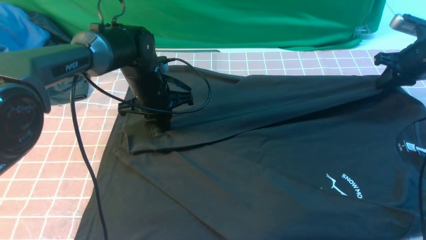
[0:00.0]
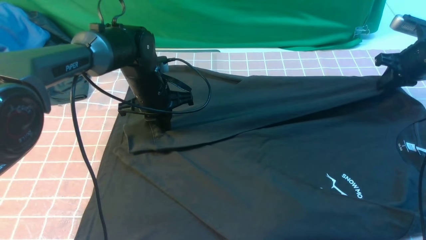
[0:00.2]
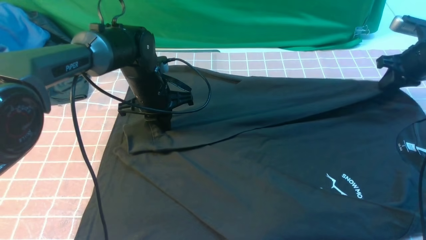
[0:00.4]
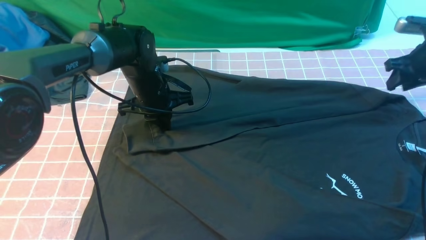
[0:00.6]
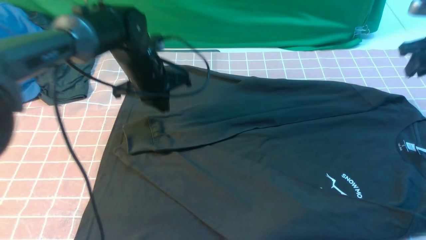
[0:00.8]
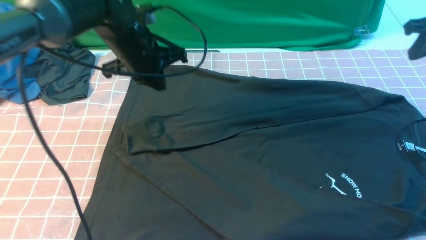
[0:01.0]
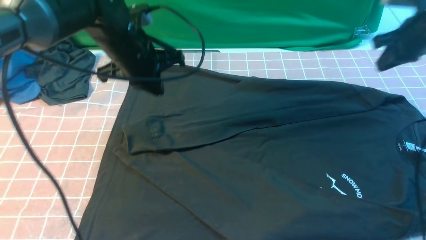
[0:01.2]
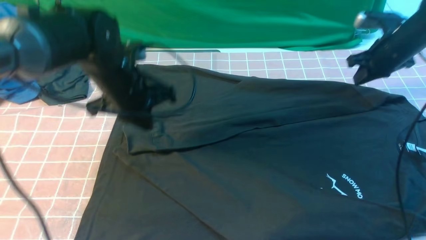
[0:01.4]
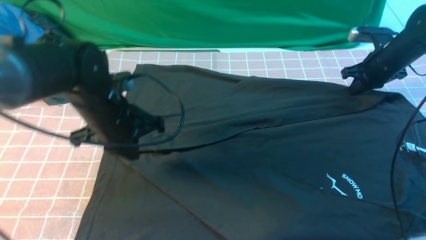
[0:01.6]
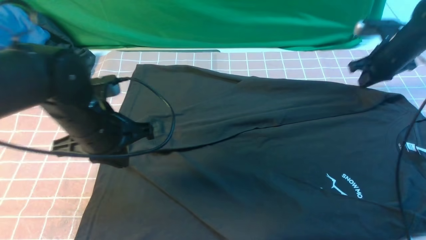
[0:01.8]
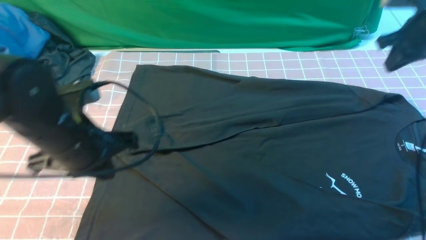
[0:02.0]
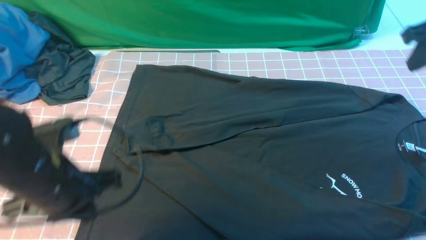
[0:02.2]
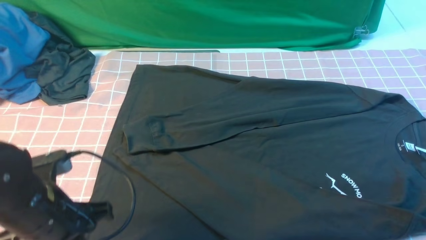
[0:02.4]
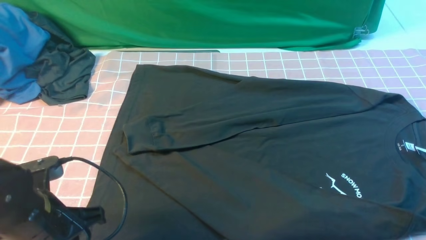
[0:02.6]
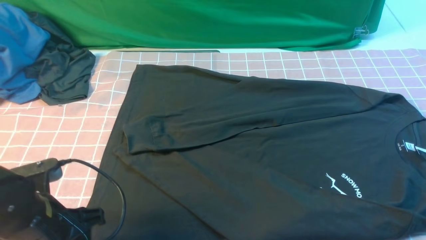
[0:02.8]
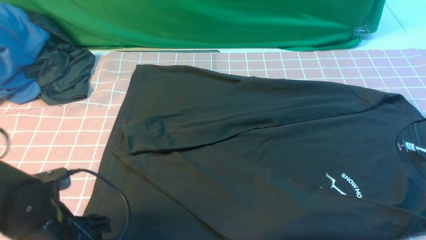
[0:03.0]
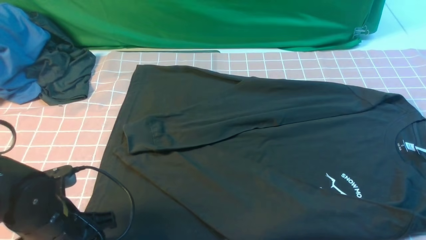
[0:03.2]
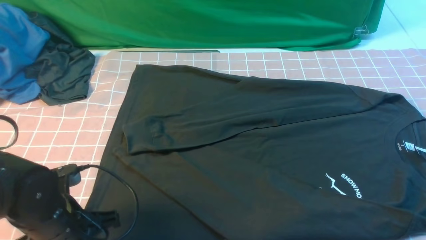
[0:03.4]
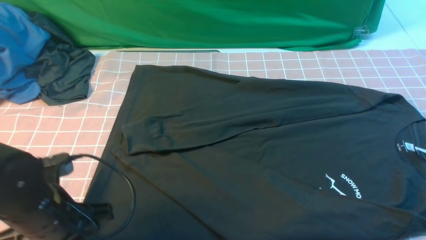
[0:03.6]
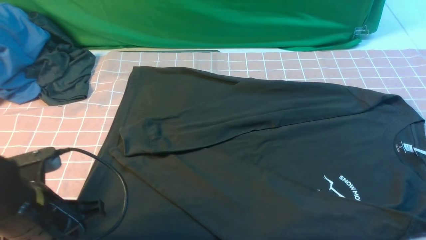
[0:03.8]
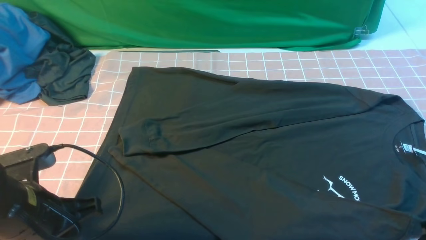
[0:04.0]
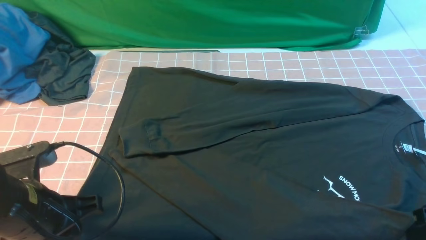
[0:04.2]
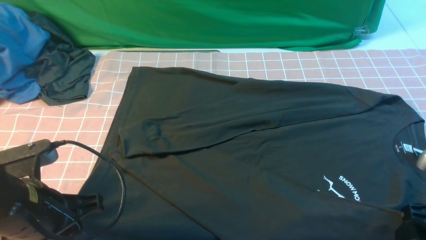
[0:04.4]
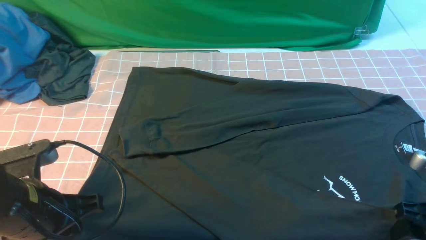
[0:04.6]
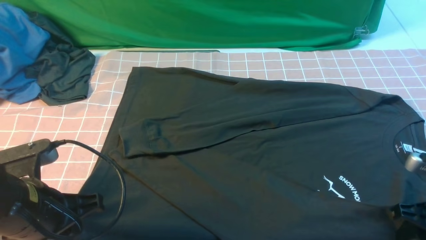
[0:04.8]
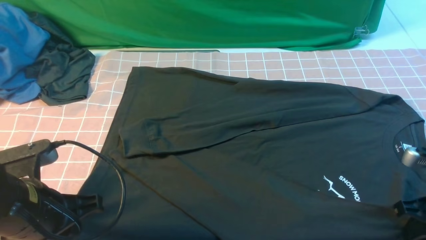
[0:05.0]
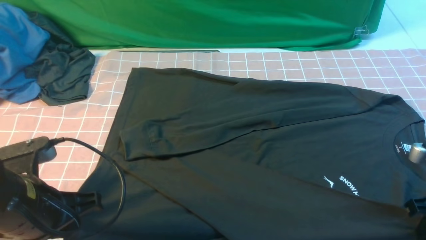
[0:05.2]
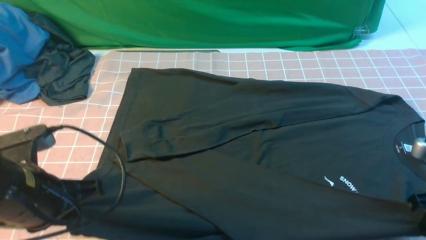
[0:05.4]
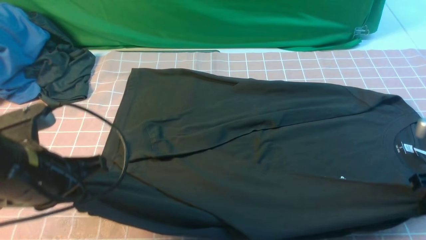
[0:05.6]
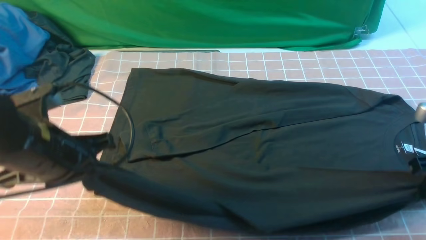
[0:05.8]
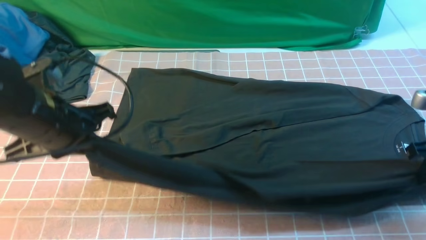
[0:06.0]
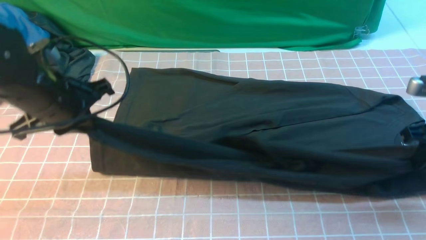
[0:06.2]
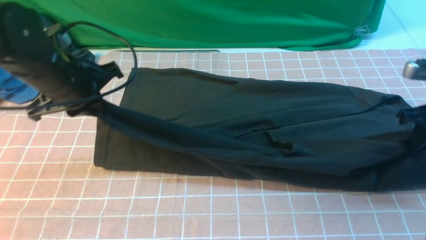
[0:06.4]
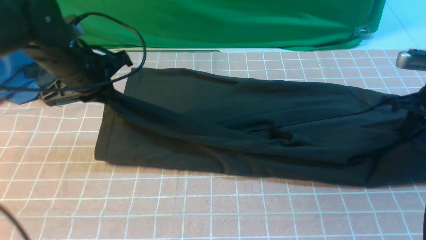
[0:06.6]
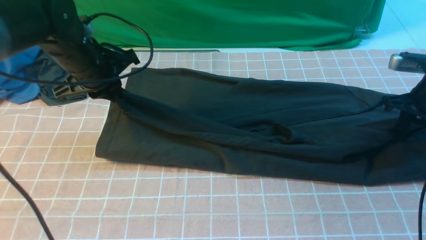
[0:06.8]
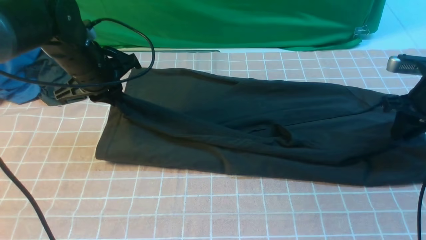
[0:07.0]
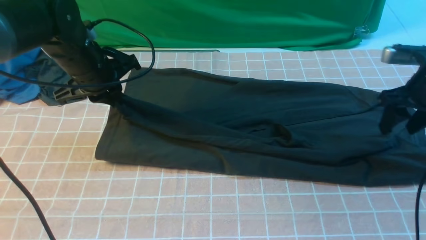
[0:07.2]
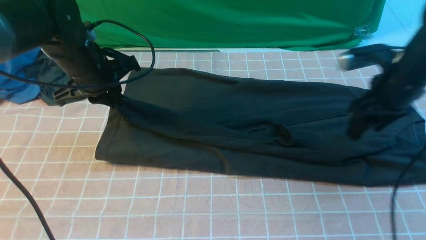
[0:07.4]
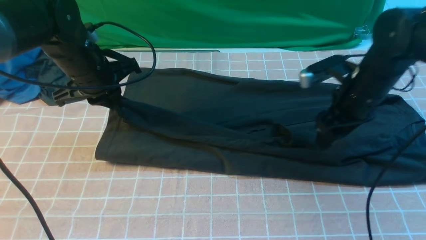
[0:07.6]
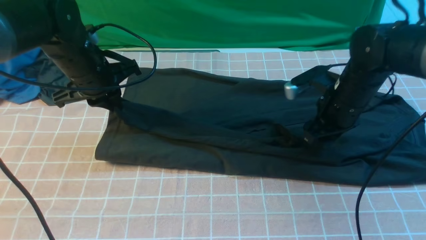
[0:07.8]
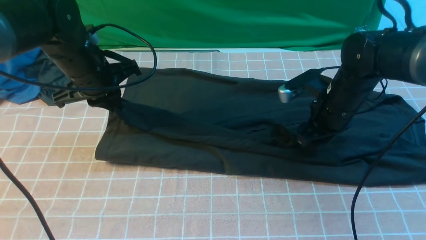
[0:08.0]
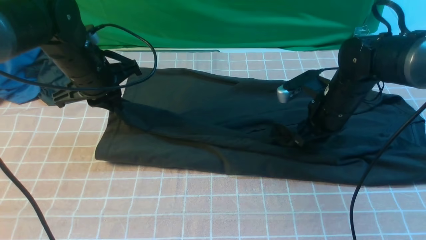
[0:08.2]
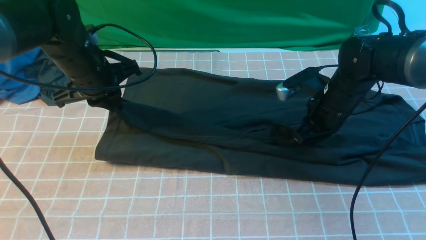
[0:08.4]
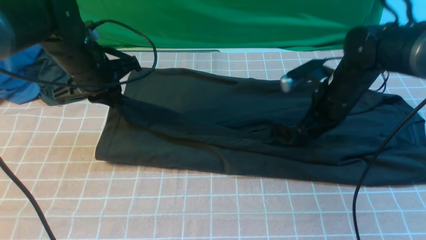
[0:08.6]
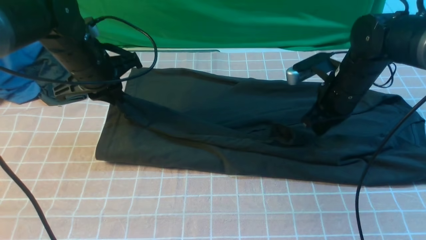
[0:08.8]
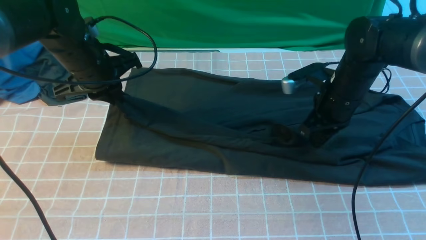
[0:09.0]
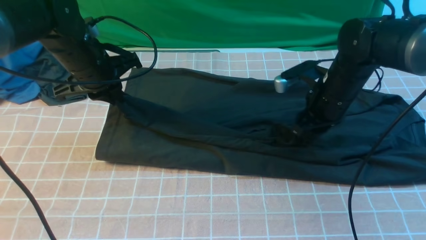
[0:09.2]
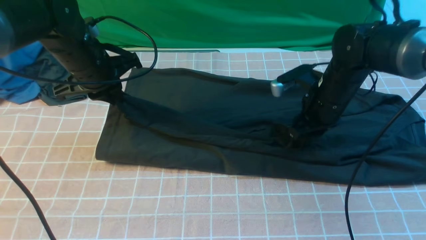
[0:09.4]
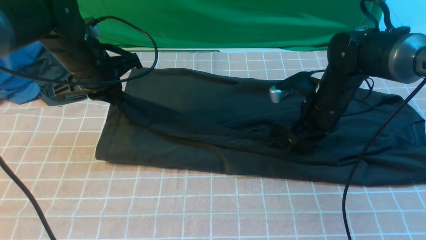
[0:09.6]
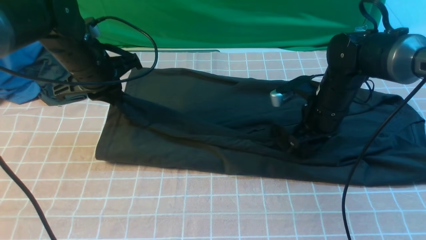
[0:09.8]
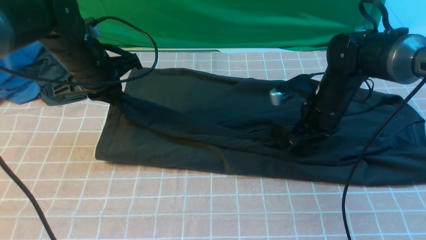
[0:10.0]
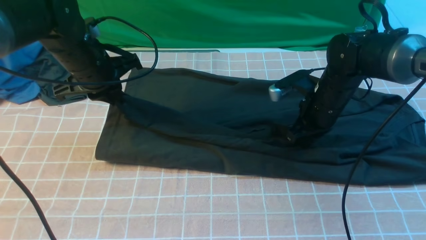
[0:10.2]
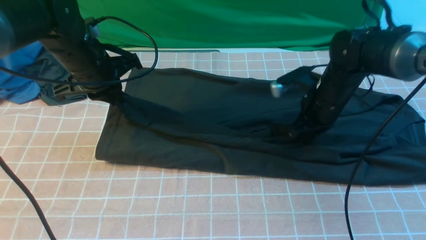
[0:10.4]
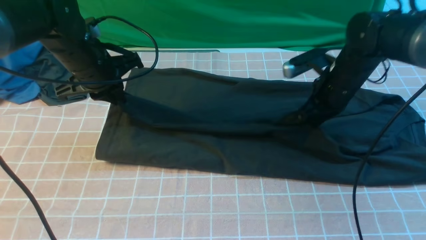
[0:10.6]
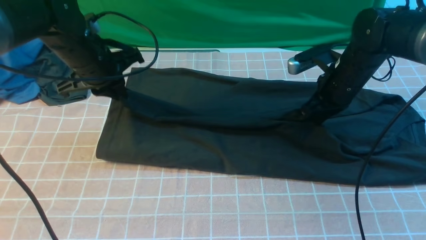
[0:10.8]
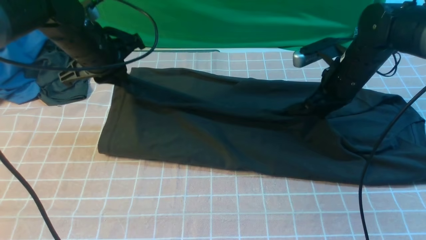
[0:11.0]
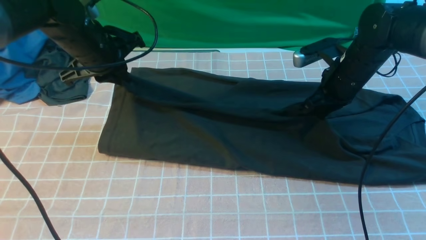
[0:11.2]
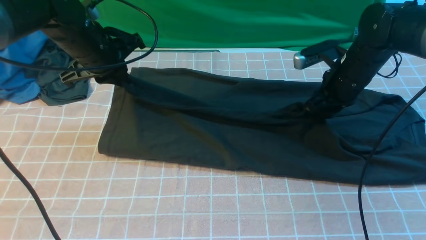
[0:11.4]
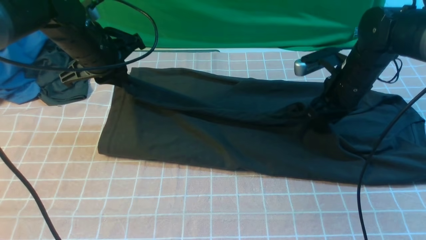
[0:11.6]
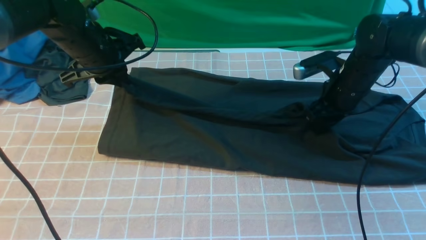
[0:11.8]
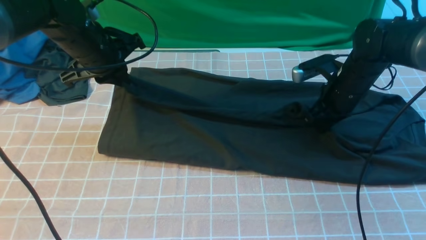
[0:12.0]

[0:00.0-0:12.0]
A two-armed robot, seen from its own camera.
Step, 0:00.0 to 0:05.0: use both arms simultaneously to clamp the lower edge of the clothing fabric.
0:00.0 to 0:01.6: The left gripper heads backward and upward, covering approximately 15 cm; the right gripper reaches some 5 cm upward, then returns, and opens and closes again.
0:01.6 to 0:03.0: The left gripper heads backward and downward, covering roughly 15 cm, and opens; the right gripper heads backward and upward, covering approximately 35 cm.
0:03.0 to 0:04.4: The left gripper shifts approximately 5 cm upward, and closes; the right gripper goes some 15 cm downward, and opens its fingers.
0:04.4 to 0:06.0: The left gripper travels forward and upward by approximately 10 cm, while the right gripper shifts roughly 10 cm forward, and closes its fingers.
0:06.0 to 0:07.6: The right gripper shifts some 15 cm to the left and forward, and opens up; the left gripper goes about 15 cm forward.
0:07.6 to 0:09.0: The right gripper closes up.
0:09.0 to 0:10.4: The right gripper opens, then closes again.
0:10.4 to 0:12.0: The right gripper opens and closes again.

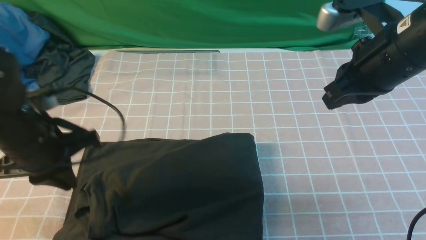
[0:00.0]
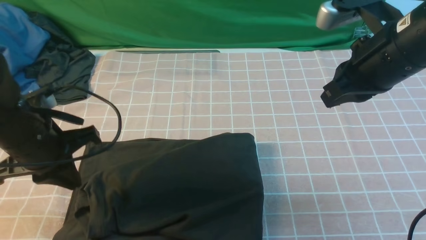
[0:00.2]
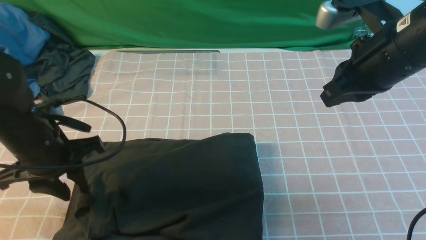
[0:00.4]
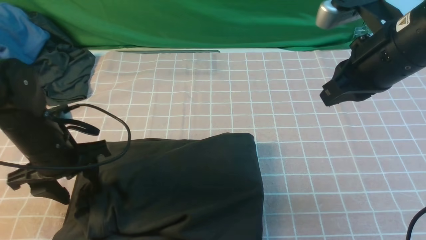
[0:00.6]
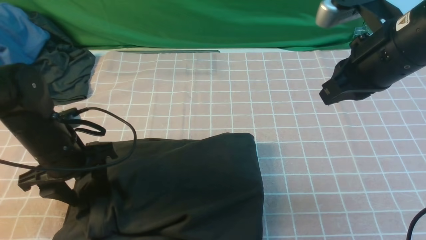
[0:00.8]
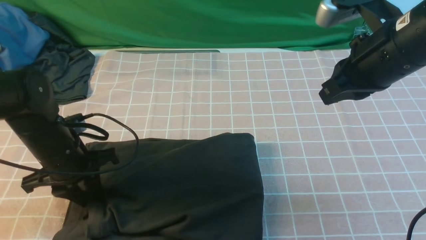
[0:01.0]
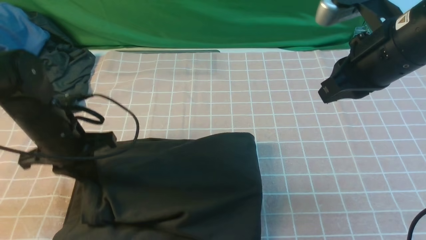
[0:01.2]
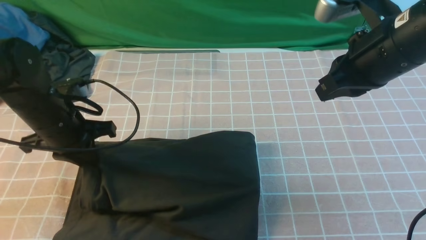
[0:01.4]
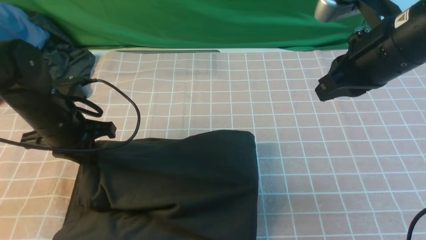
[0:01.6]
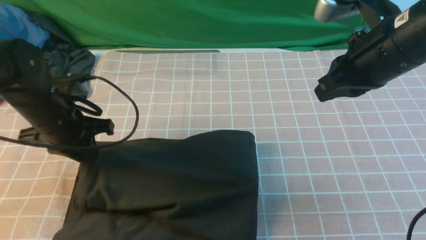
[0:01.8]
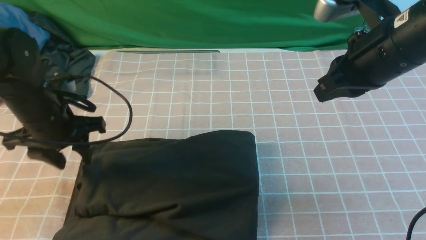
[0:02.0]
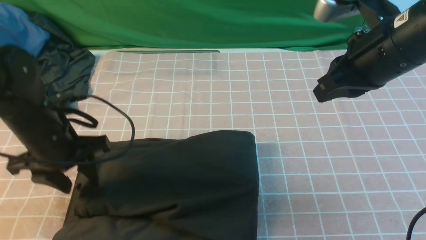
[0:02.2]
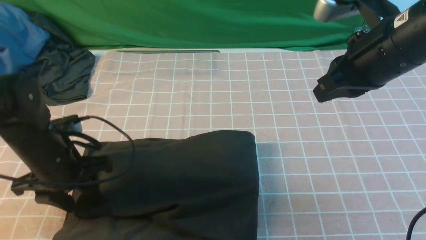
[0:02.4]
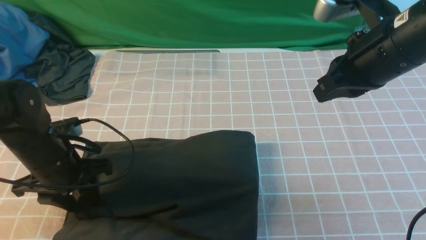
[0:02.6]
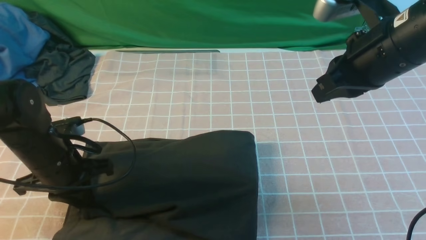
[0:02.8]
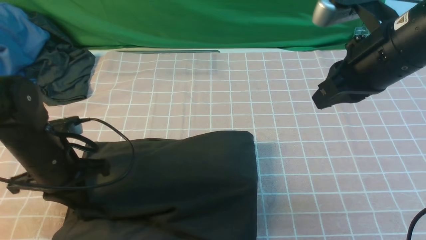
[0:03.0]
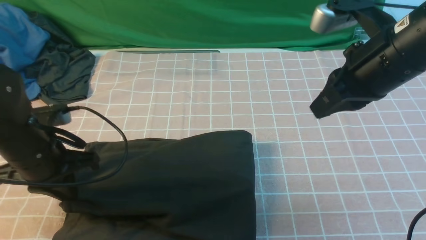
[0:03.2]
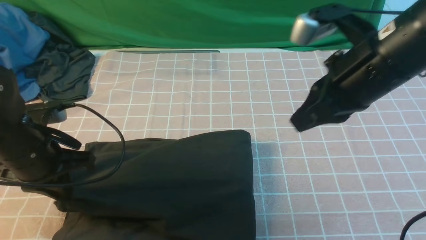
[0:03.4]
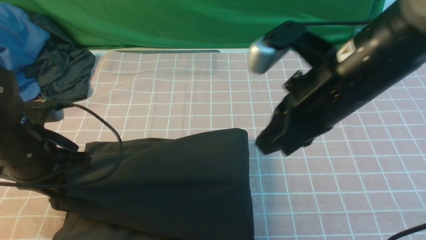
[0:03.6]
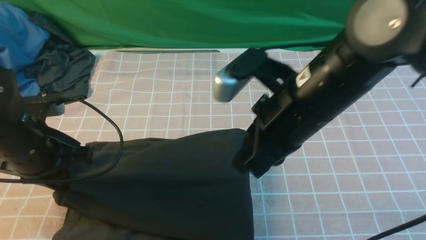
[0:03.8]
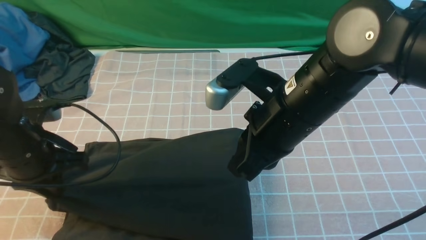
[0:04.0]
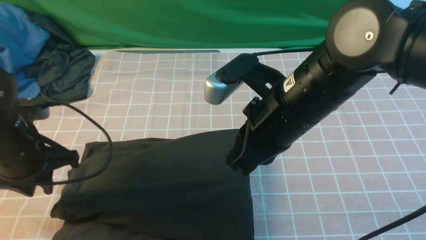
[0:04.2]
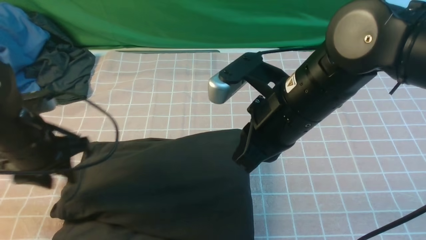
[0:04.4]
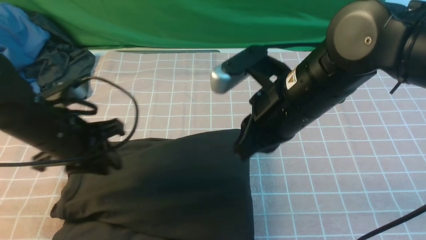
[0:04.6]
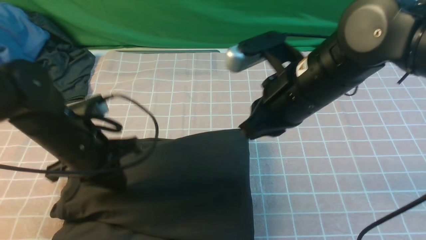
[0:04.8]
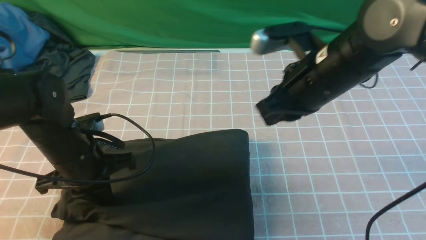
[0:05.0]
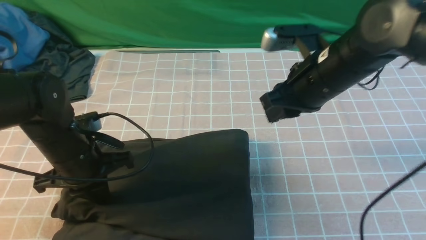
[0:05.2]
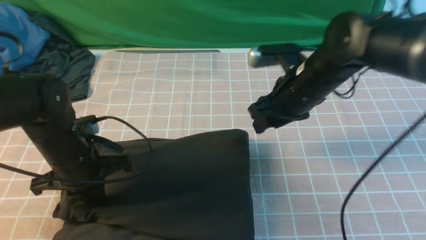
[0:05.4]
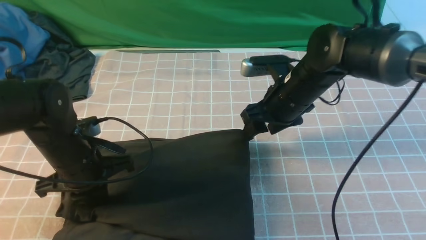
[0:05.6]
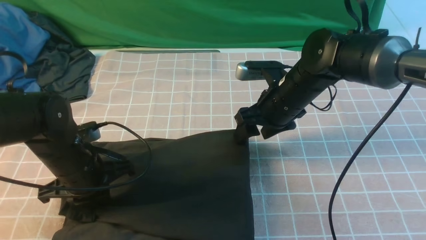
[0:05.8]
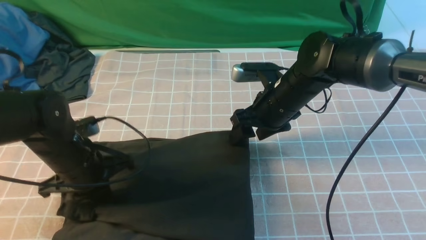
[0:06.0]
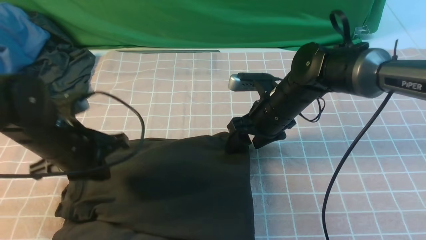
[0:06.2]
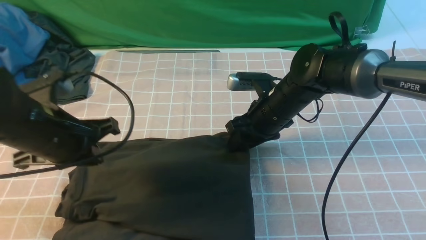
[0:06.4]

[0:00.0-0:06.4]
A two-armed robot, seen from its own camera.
0:00.0 to 0:01.6: The left gripper moves forward, roughly 5 cm, and opens and closes again.
0:01.6 to 0:03.2: The left gripper moves backward, approximately 5 cm, and opens, then closes once more.
0:03.2 to 0:04.8: The right gripper shifts approximately 5 cm to the left; the left gripper opens, then closes once more.
0:04.8 to 0:06.4: The right gripper is displaced downward and forward by approximately 15 cm, and opens its fingers; the left gripper moves some 5 cm.
